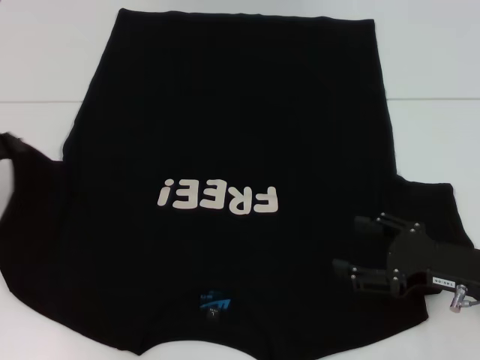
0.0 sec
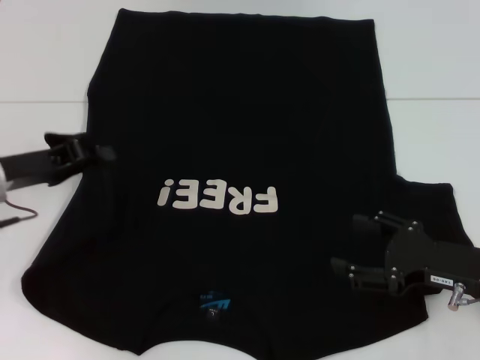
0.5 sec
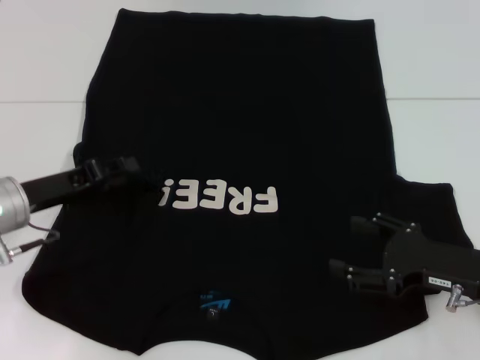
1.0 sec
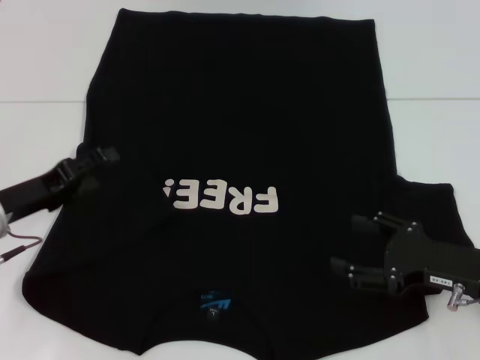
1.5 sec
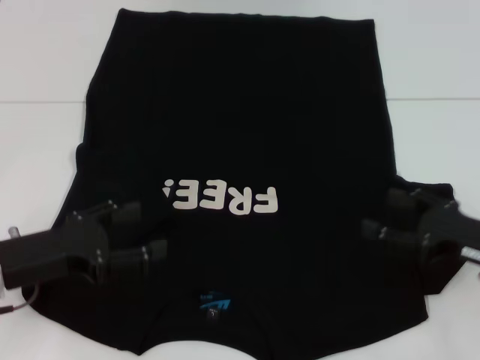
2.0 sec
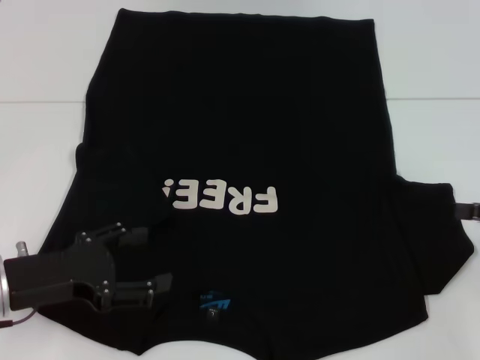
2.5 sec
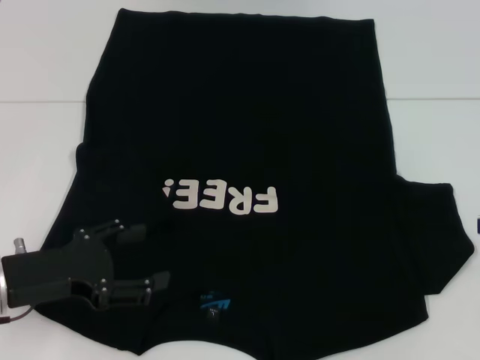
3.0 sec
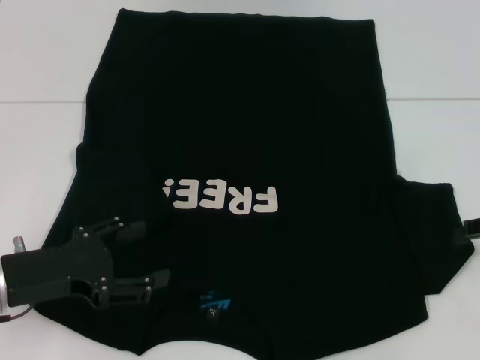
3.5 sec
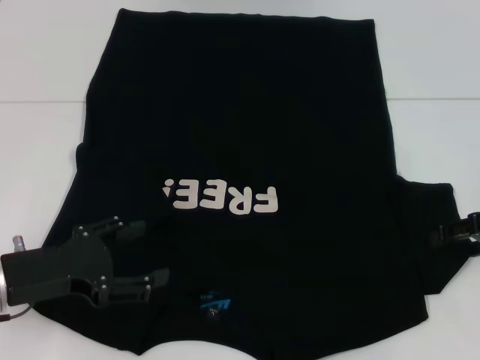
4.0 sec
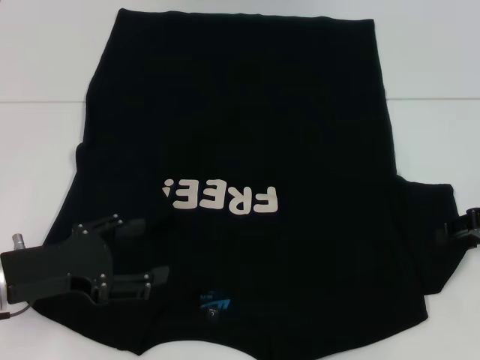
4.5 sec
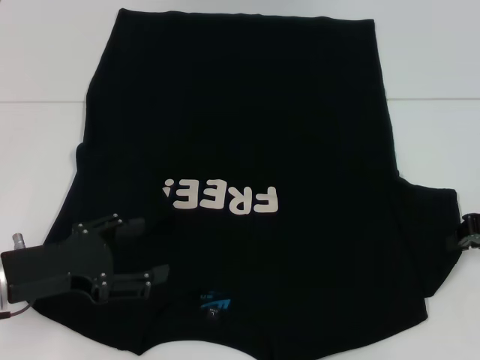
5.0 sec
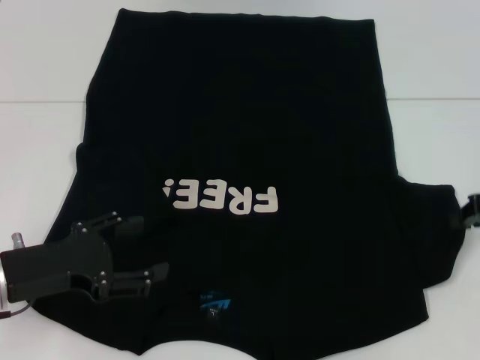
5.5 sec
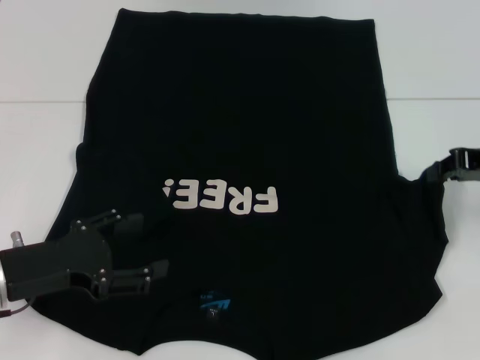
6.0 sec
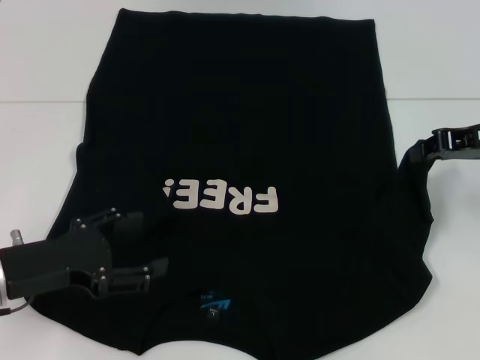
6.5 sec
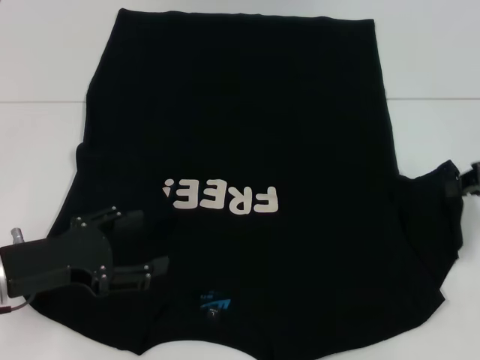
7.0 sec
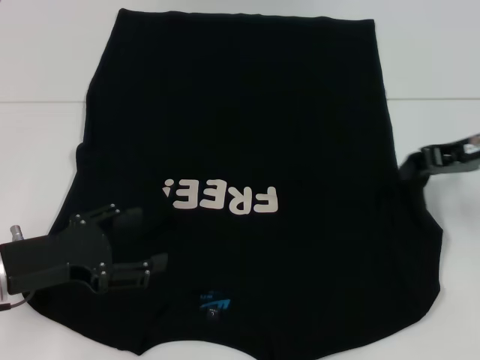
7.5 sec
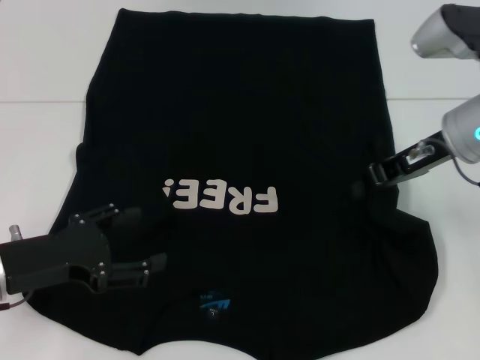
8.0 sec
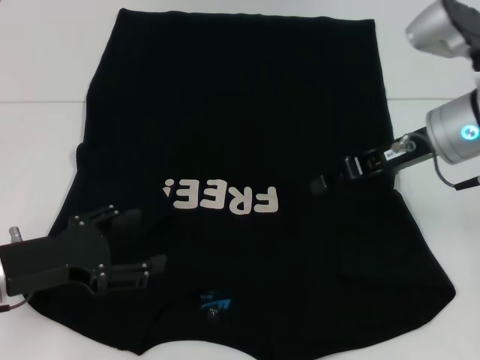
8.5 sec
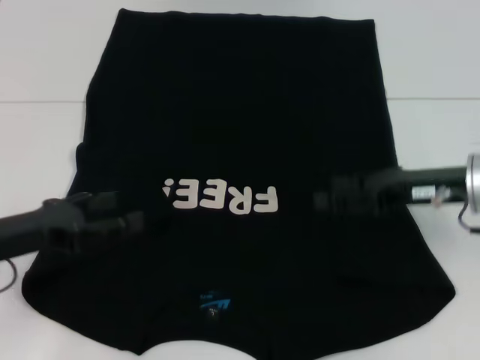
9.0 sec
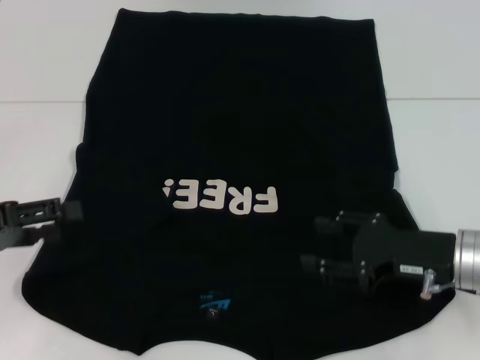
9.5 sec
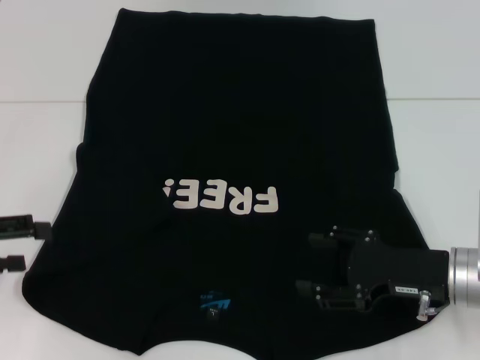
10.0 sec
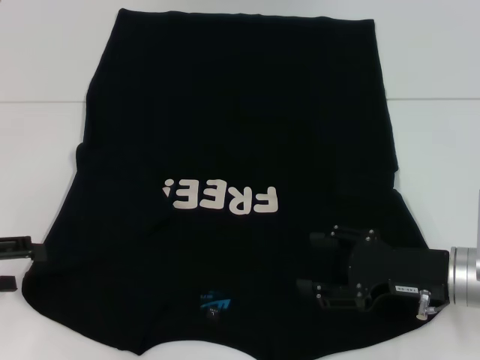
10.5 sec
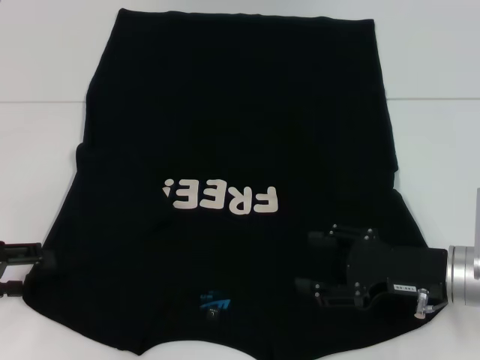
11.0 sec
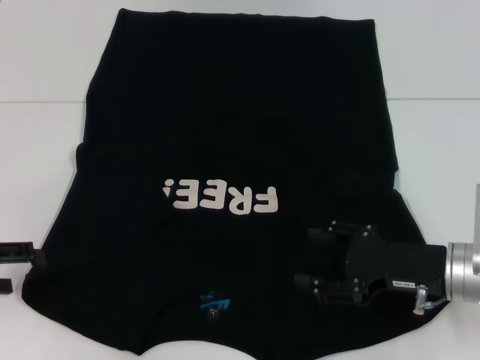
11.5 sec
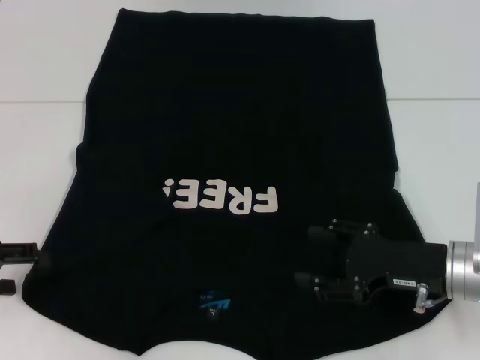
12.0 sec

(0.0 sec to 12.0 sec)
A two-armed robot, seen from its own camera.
Step, 1.5 sec - 8.5 sec: Fold the bottom right sleeve with your right hand.
0.0 sec - 2.0 sec: The left gripper moves to the right and backward, roughly 10 cm, and opens.
2.0 sec - 4.0 sec: The right gripper moves forward and upward, about 10 cm.
4.0 sec - 6.0 sec: The right gripper ends up some 5 cm from where it was, and closes up.
6.0 sec - 8.0 sec: The right gripper is displaced to the left by roughly 10 cm.
8.0 sec - 10.0 sec: The left gripper shifts roughly 10 cm to the left and upward; the right gripper shifts about 15 cm downward and backward, and opens its fingers.
10.0 sec - 12.0 sec: The grippers make only small movements.

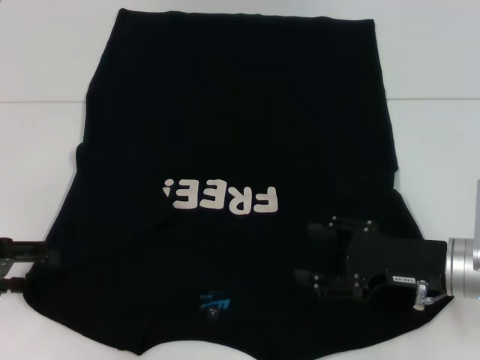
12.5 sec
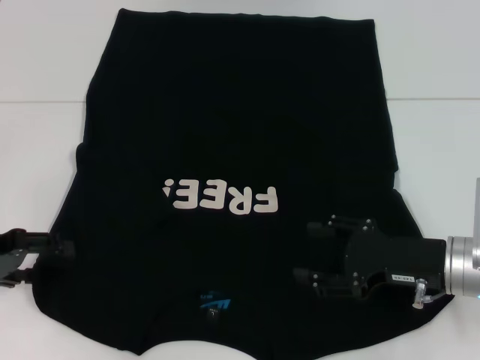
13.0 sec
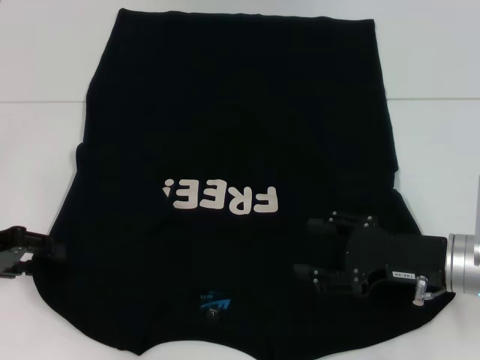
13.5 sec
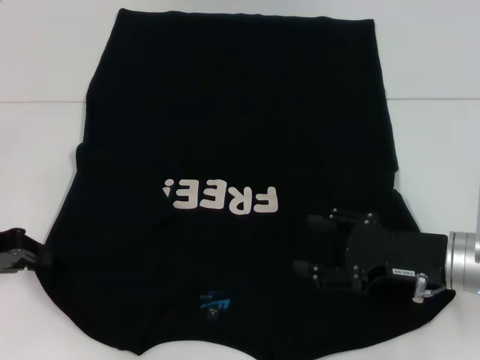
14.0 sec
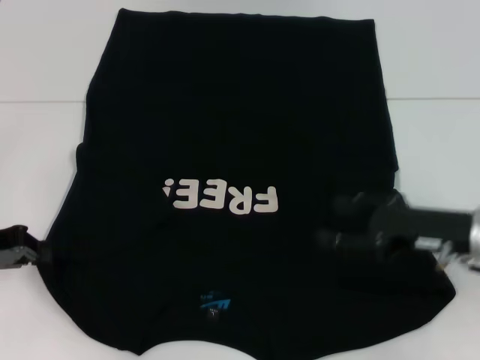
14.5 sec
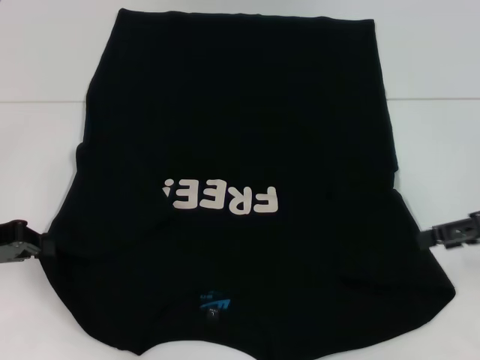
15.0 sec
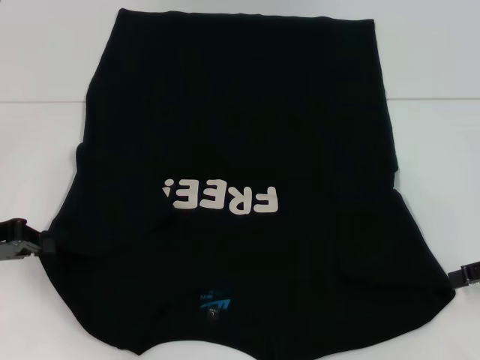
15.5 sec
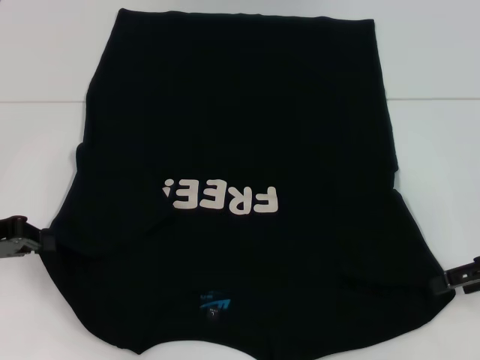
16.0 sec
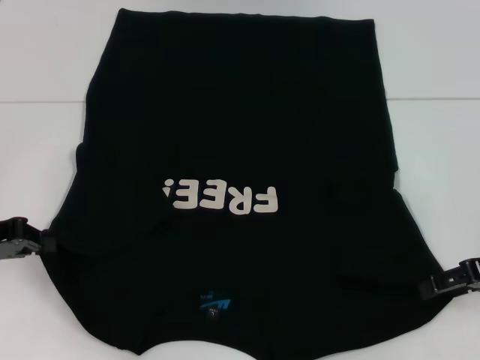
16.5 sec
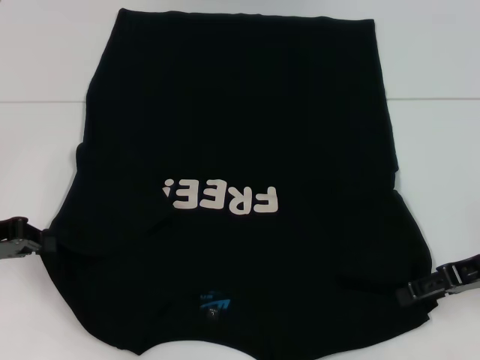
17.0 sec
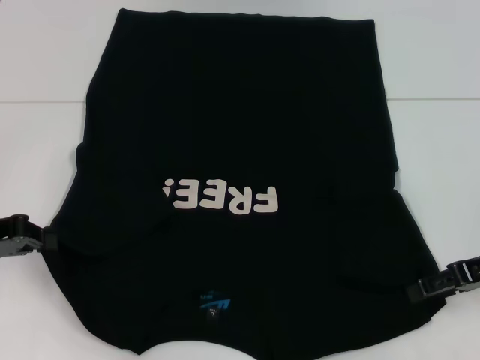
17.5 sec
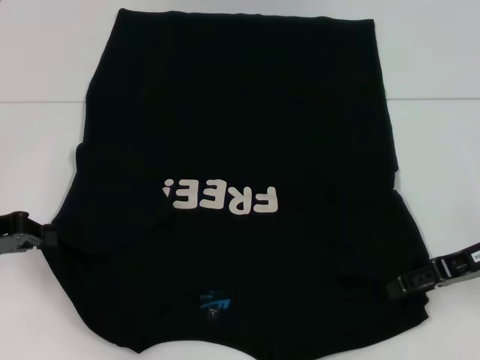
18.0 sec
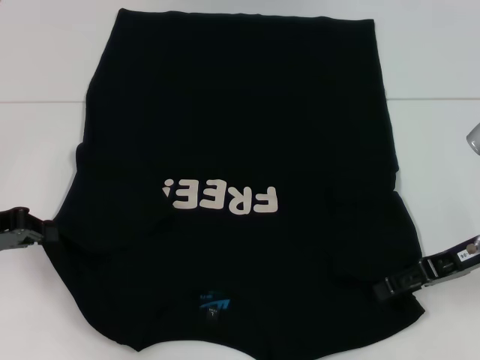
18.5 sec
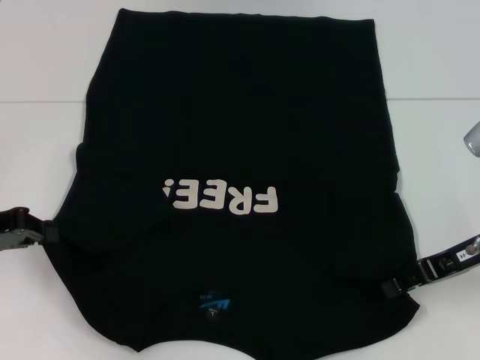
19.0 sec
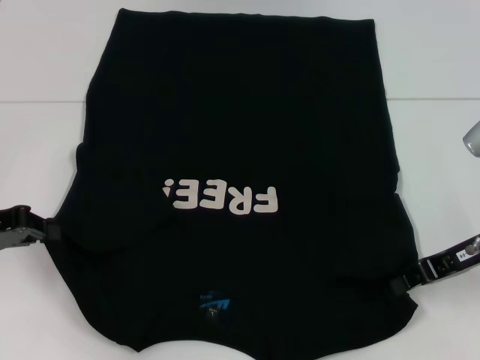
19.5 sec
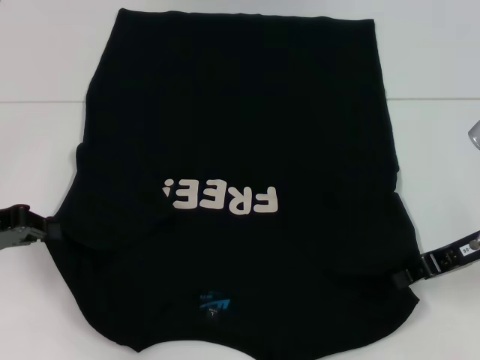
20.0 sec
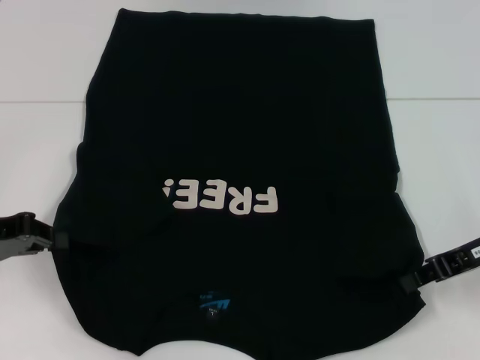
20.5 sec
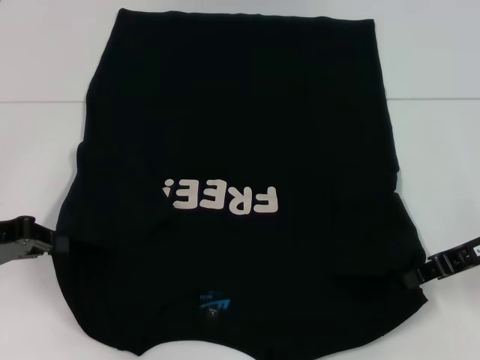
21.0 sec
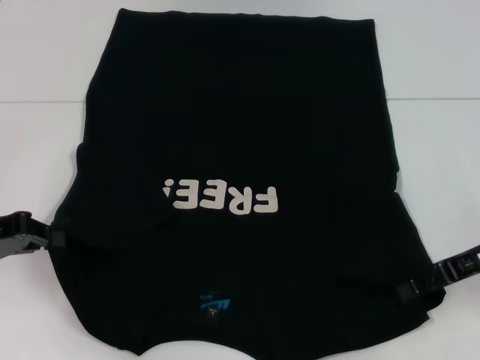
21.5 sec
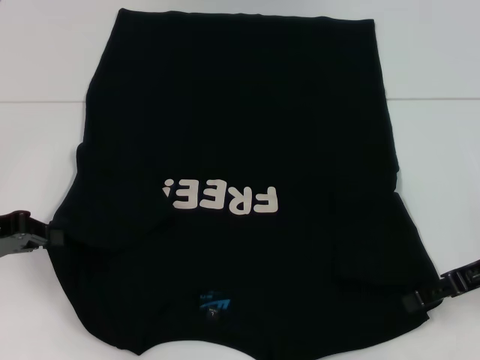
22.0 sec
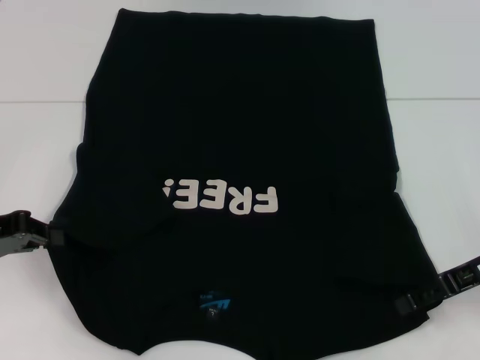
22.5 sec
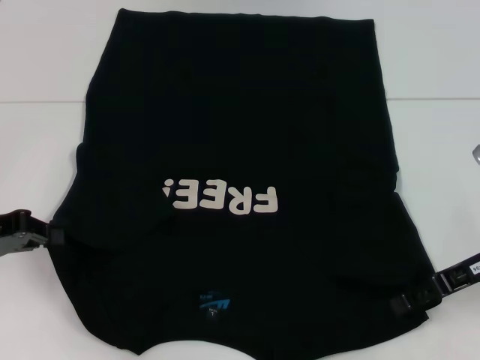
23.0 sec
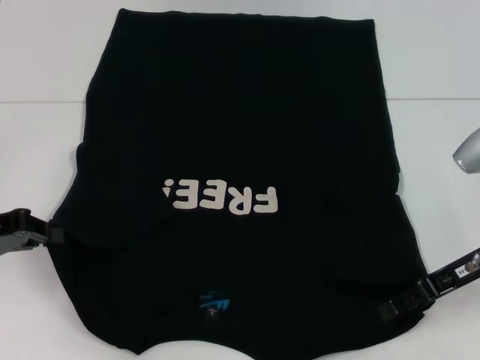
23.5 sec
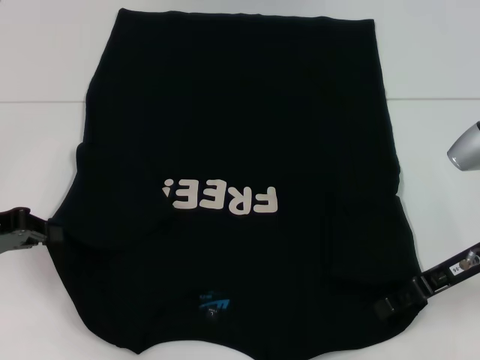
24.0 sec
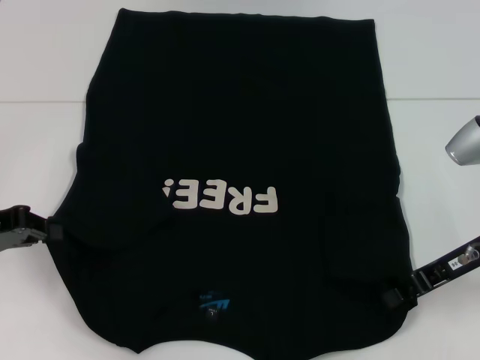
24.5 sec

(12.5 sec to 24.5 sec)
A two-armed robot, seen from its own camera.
Step, 14.0 sec - 18.5 sec: Grab the bottom right corner with your right hand.
12.5 sec - 14.5 sec: The left gripper closes up.
14.5 sec - 16.5 sec: The right gripper heads to the right, covering roughly 5 cm.
16.5 sec - 18.5 sec: The grippers move only a little.
18.5 sec - 20.5 sec: The right gripper closes.
20.5 sec - 22.5 sec: The right gripper opens.
22.5 sec - 24.5 sec: The right gripper closes up.

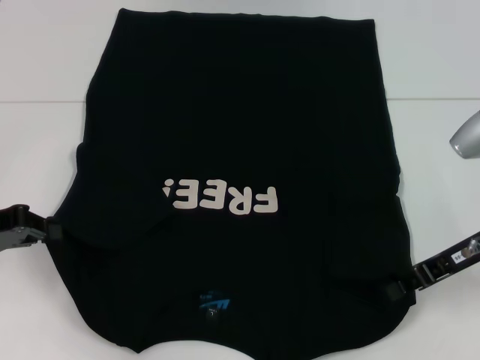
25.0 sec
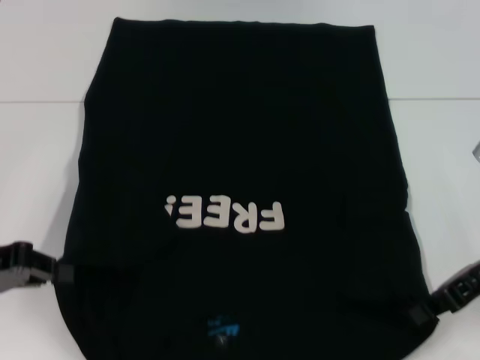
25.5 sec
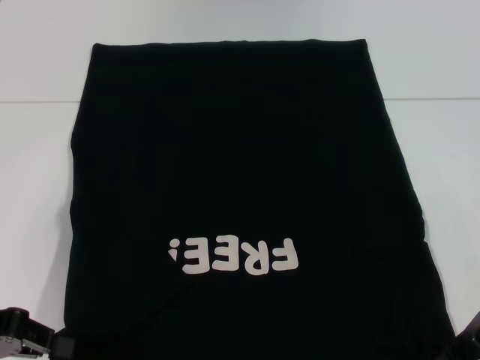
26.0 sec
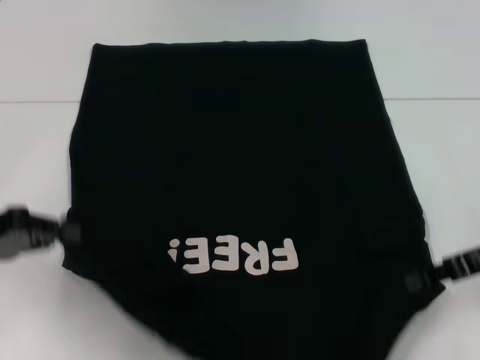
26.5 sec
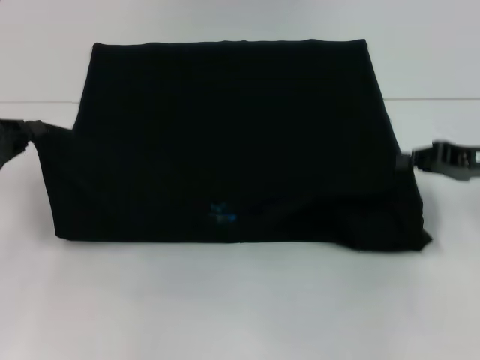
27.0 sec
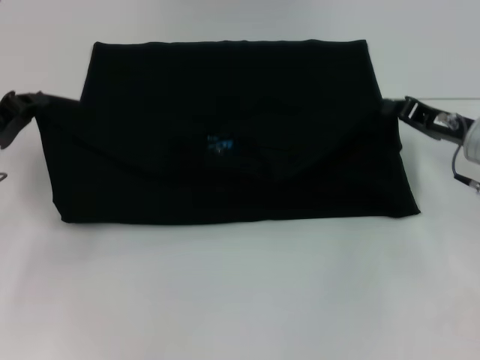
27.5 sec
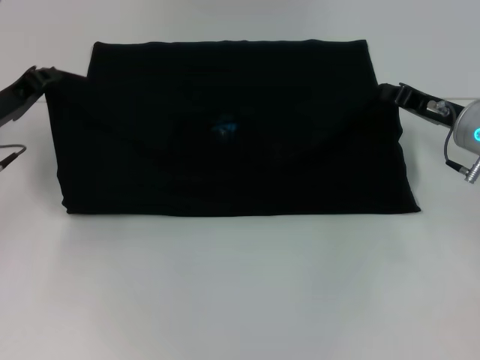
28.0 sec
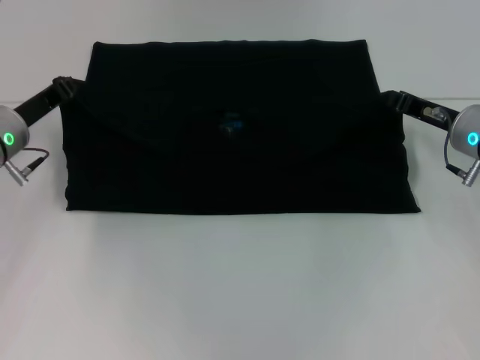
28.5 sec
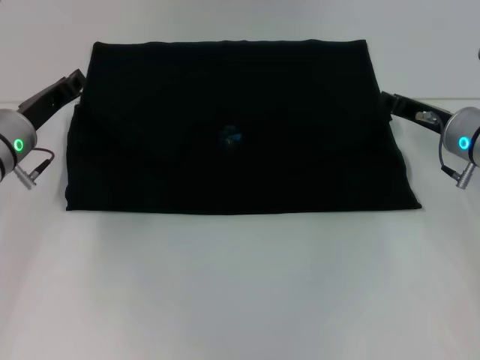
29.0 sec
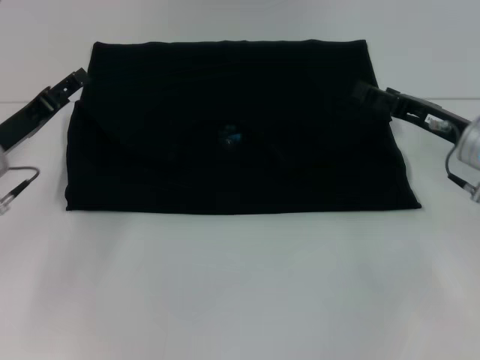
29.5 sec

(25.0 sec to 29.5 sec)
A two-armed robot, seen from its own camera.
25.0 sec - 27.0 sec: The right gripper moves approximately 5 cm. The left gripper reaches approximately 5 cm backward, then returns.
27.0 sec - 29.5 sec: The right gripper heads to the left, covering about 5 cm, and opens up. Meanwhile the left gripper moves to the right, roughly 5 cm, and opens up.
